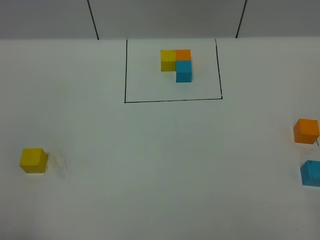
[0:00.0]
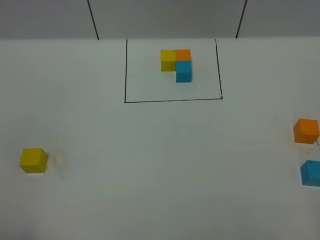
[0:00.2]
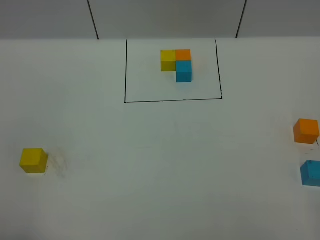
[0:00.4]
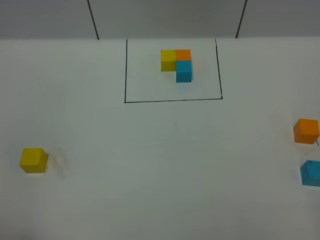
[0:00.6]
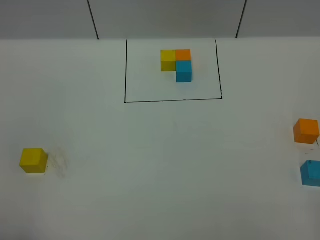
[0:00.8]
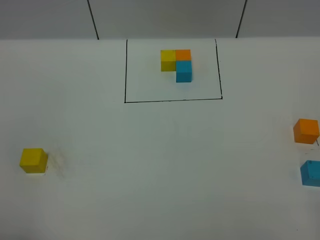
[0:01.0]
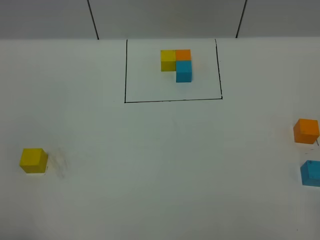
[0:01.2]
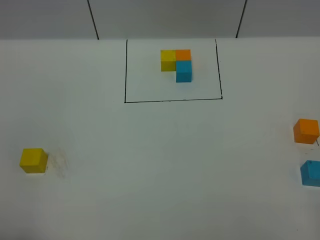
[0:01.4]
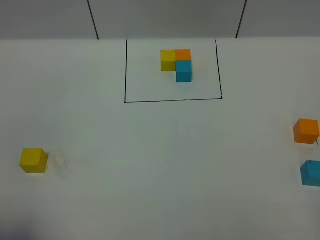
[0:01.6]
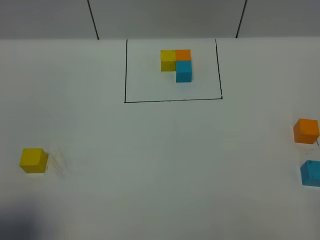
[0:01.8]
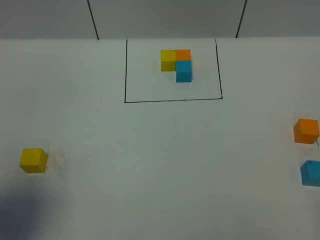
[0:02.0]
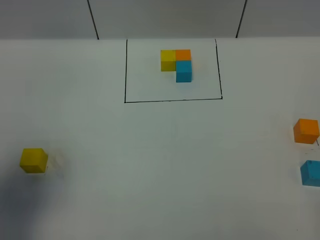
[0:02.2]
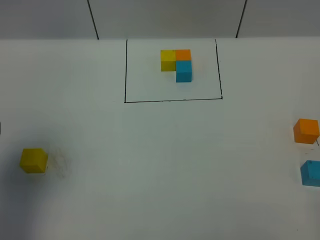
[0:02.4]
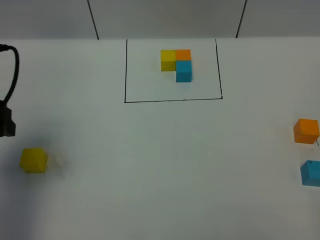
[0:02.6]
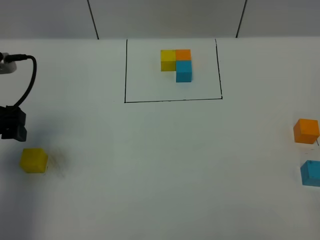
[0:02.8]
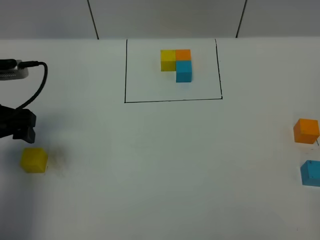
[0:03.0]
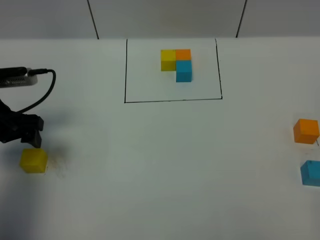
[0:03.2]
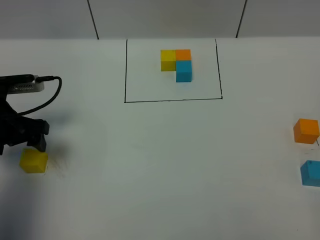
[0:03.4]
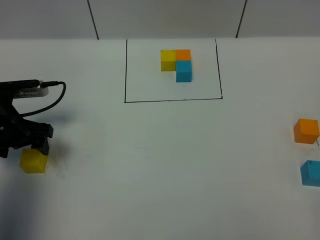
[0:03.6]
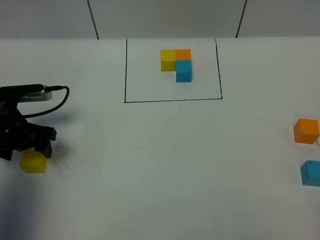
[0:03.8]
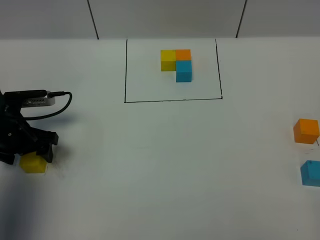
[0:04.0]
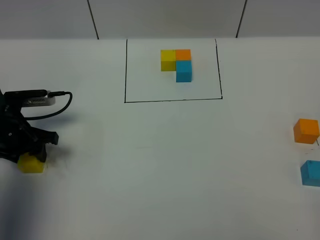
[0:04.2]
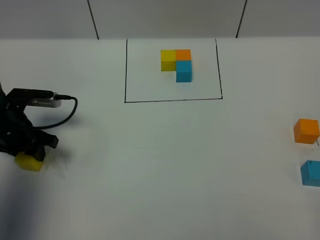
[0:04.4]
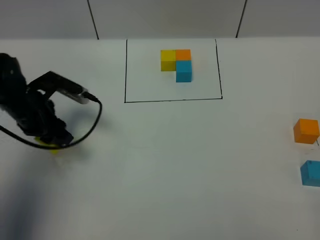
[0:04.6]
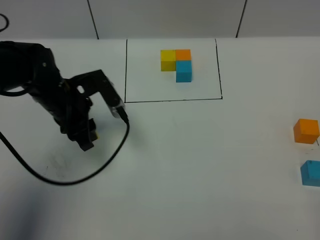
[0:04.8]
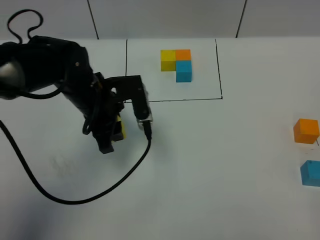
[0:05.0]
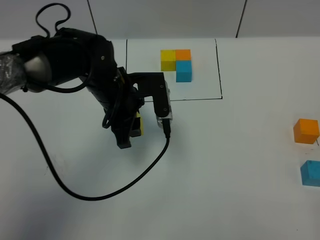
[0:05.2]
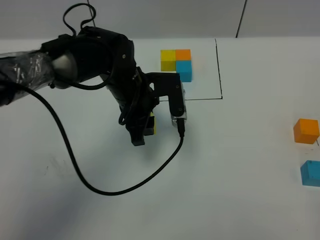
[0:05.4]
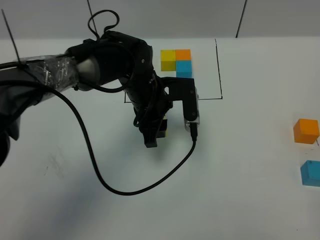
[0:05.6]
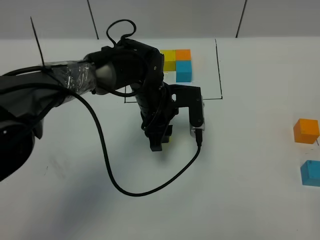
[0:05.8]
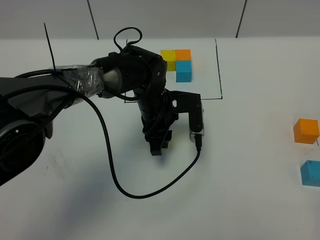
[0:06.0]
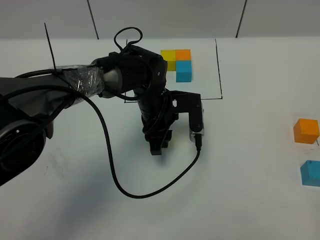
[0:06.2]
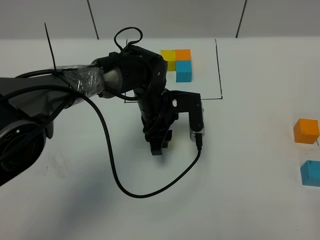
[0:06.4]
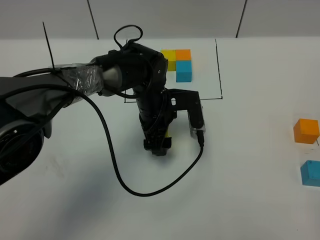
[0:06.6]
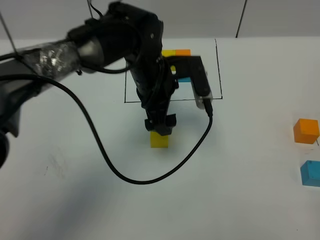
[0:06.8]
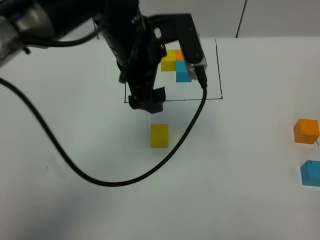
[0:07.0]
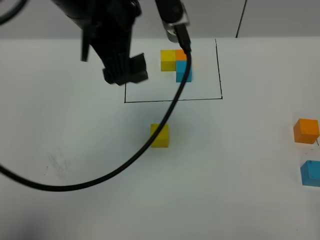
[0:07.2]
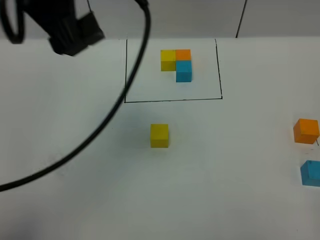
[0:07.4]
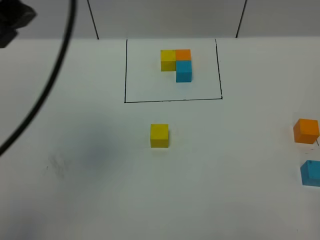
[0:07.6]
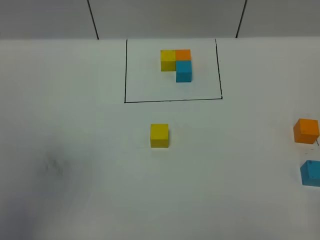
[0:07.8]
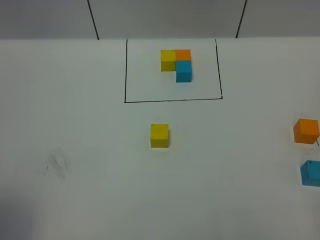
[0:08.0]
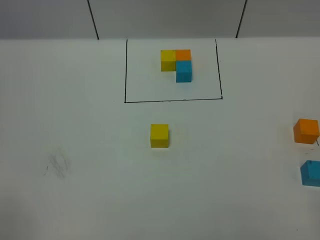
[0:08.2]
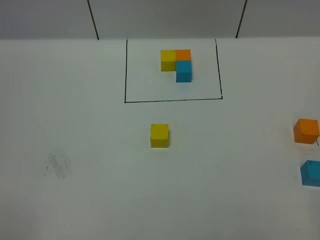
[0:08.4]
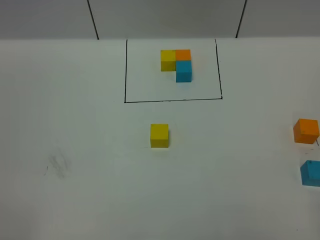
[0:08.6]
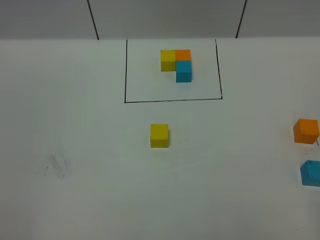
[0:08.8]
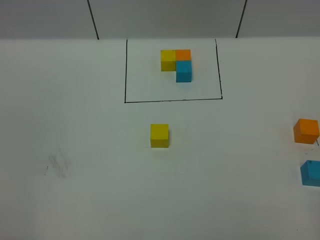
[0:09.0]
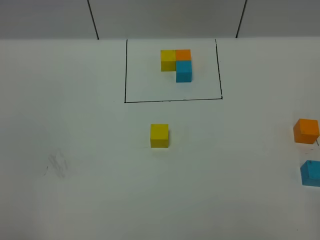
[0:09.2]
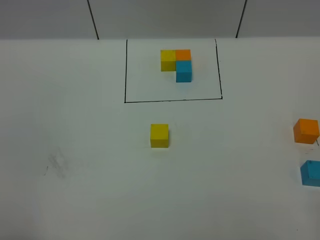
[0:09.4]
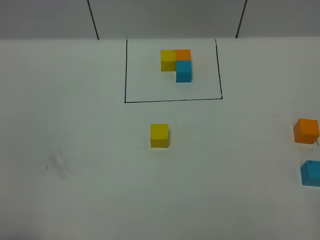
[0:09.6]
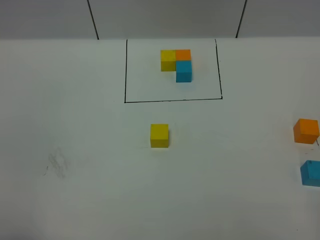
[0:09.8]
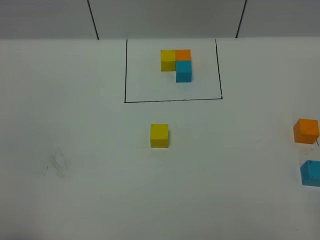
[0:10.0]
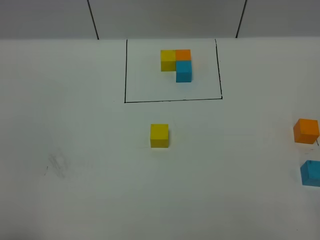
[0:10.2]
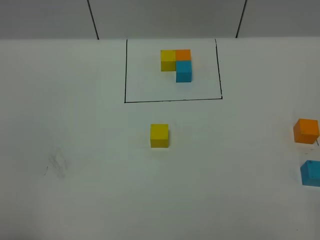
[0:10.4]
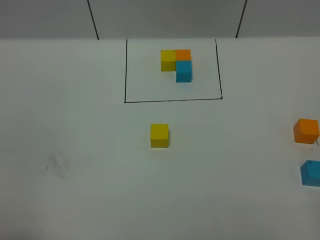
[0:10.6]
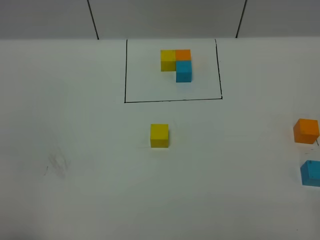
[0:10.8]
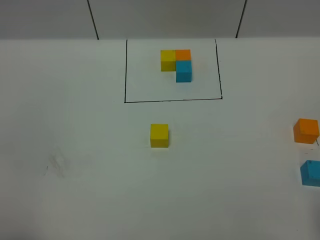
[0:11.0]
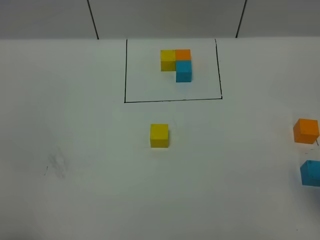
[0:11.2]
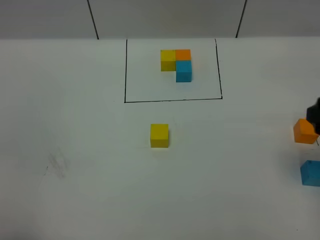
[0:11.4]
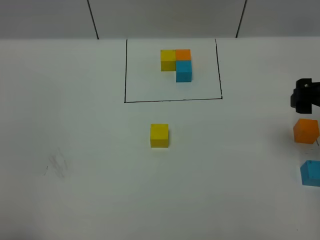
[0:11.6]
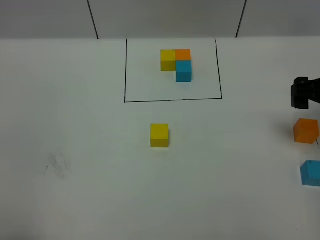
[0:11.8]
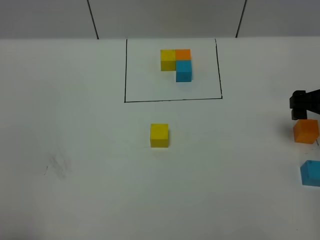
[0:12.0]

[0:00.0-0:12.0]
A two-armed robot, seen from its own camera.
Task of the whole recording: According to the building block template in front, assemble the scattered blocks together.
Step, 0:02.4 to 0:06.6: Put the yellow cube in the center of the table.
0:01.6 to 0:03.0: The left gripper travels forward by about 25 cm.
0:03.0 to 0:04.4: The left gripper heads downward, covering about 10 cm, and closes up.
0:04.4 to 0:06.0: The left gripper moves to the right, about 25 cm.
0:06.0 to 0:07.6: The left gripper heads upward, to the left and backward, covering about 40 cm, and opens up.
0:07.6 to 0:09.0: The left gripper heads backward, downward and to the left, covering some 30 cm.
0:10.4 to 0:12.0: The right gripper heads forward, covering roughly 30 cm, and opens up.

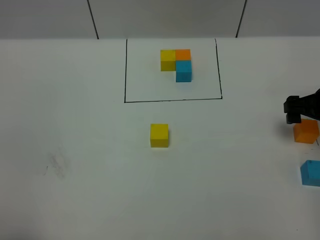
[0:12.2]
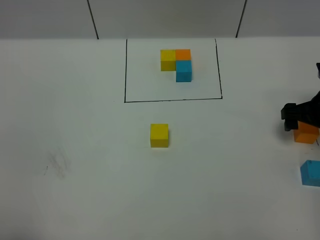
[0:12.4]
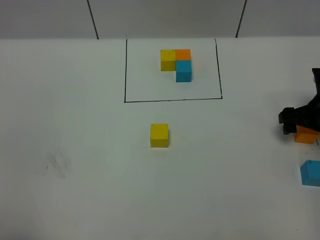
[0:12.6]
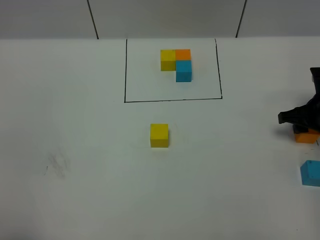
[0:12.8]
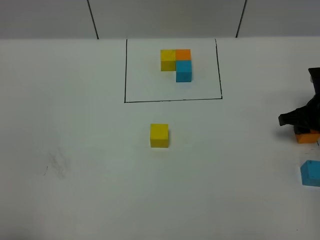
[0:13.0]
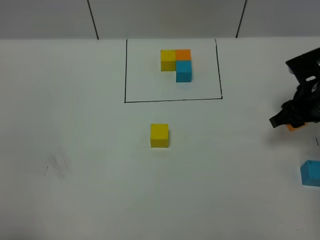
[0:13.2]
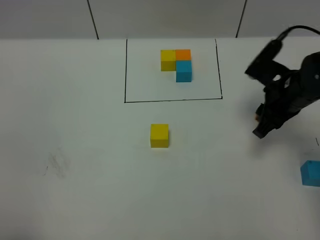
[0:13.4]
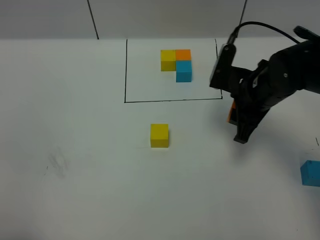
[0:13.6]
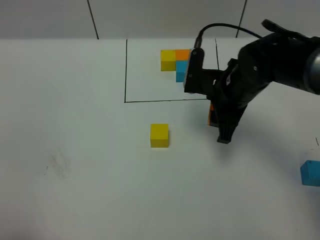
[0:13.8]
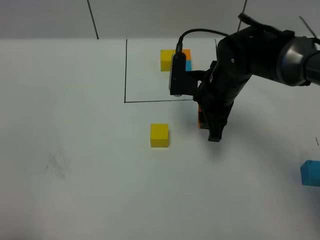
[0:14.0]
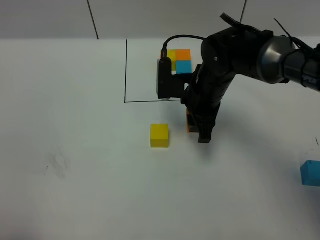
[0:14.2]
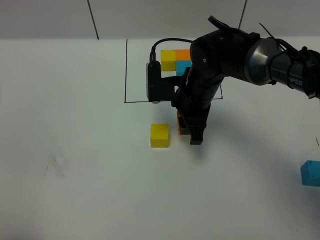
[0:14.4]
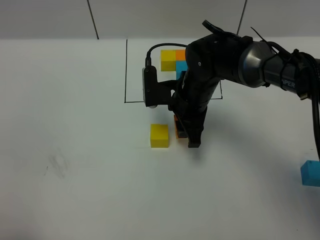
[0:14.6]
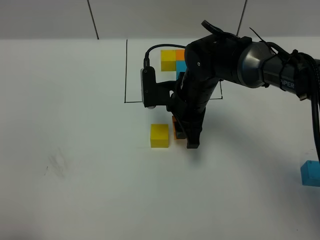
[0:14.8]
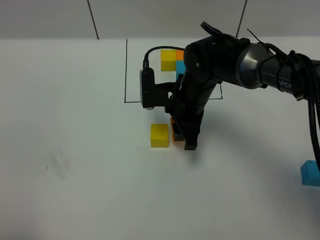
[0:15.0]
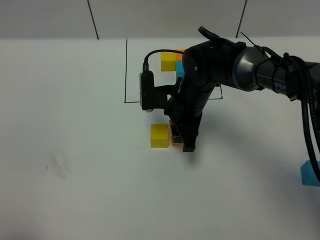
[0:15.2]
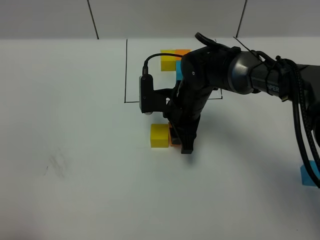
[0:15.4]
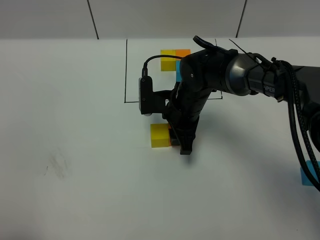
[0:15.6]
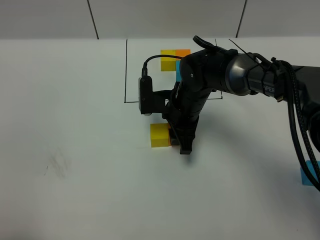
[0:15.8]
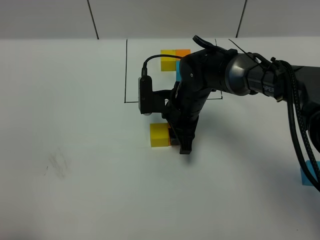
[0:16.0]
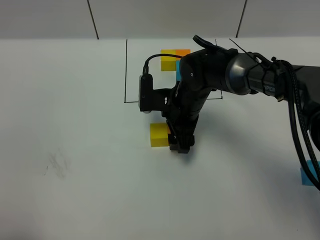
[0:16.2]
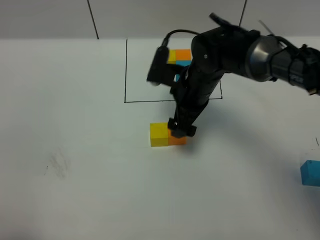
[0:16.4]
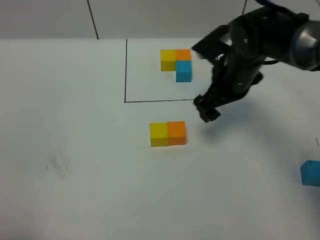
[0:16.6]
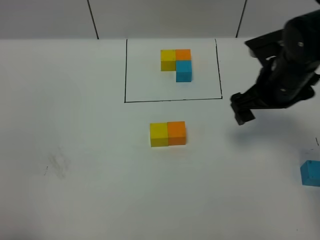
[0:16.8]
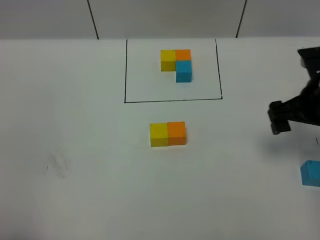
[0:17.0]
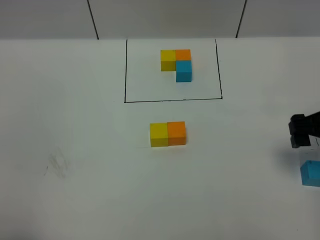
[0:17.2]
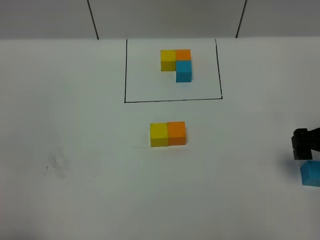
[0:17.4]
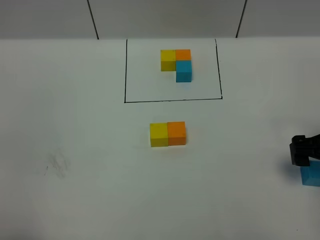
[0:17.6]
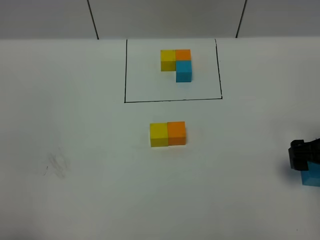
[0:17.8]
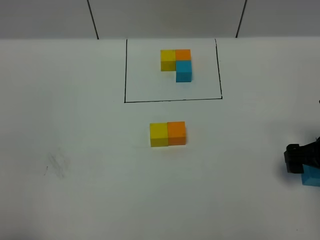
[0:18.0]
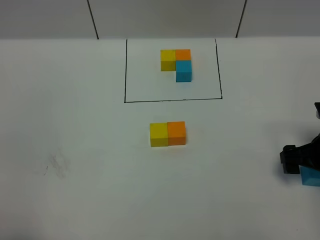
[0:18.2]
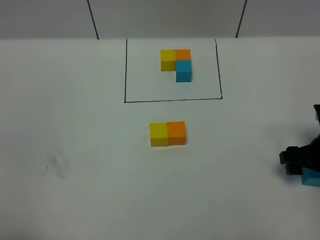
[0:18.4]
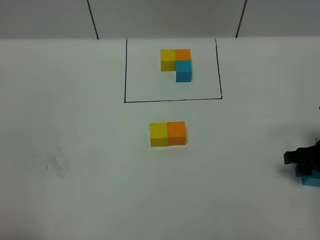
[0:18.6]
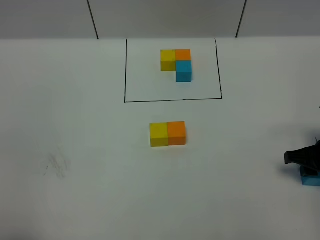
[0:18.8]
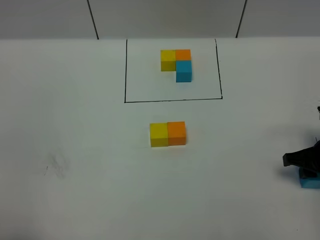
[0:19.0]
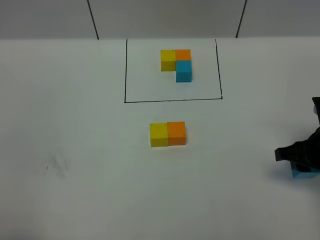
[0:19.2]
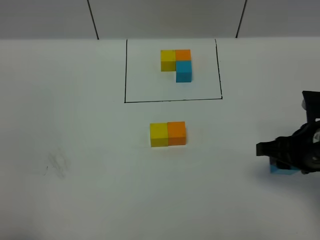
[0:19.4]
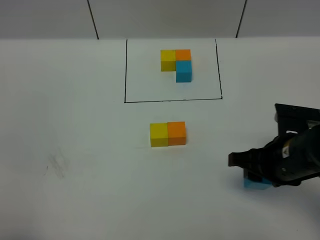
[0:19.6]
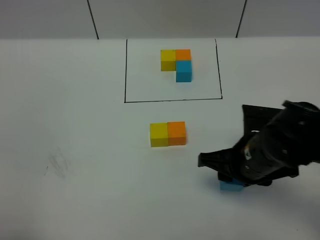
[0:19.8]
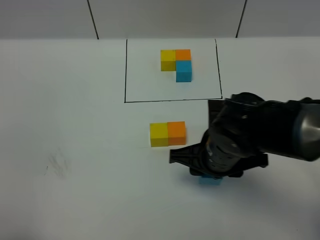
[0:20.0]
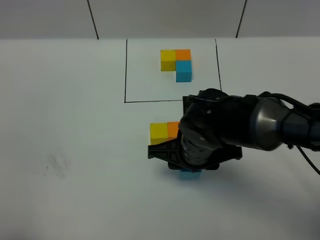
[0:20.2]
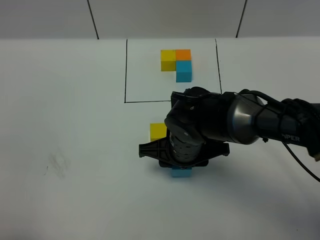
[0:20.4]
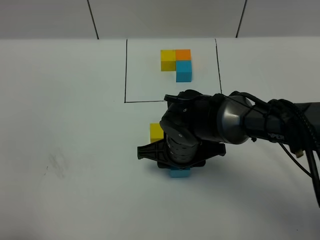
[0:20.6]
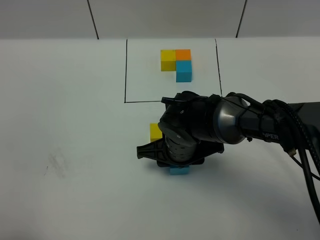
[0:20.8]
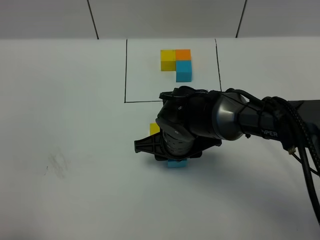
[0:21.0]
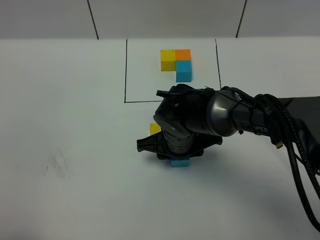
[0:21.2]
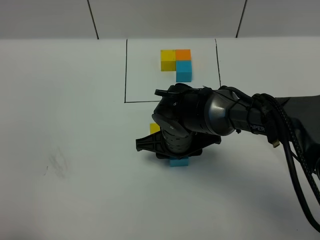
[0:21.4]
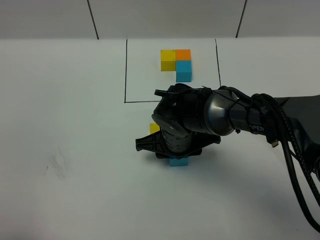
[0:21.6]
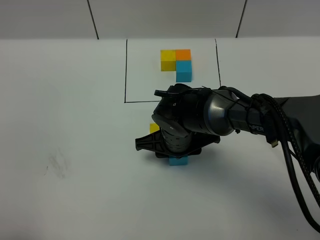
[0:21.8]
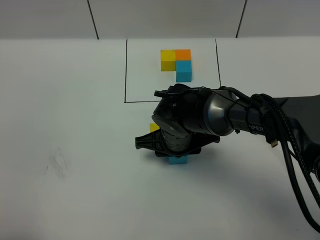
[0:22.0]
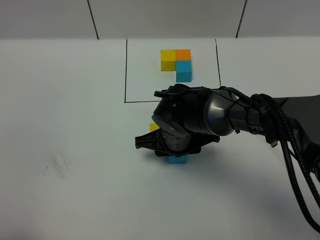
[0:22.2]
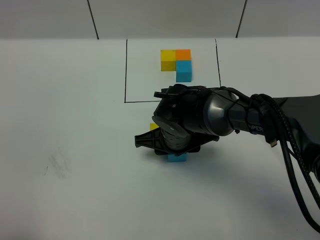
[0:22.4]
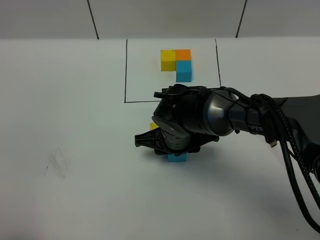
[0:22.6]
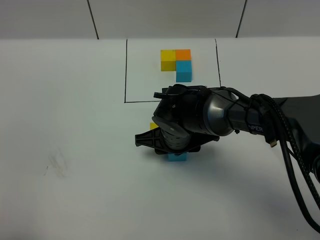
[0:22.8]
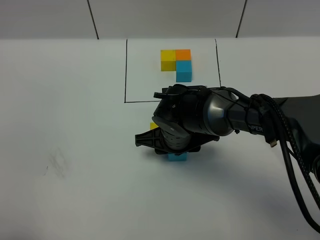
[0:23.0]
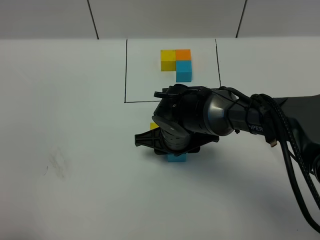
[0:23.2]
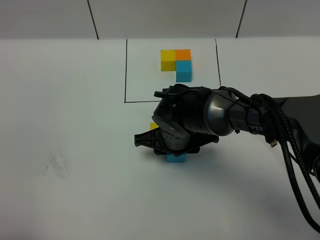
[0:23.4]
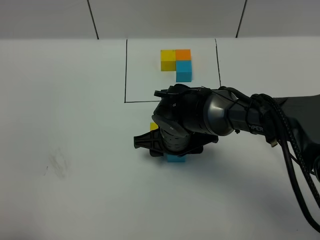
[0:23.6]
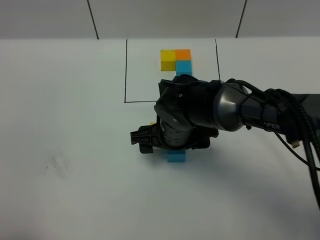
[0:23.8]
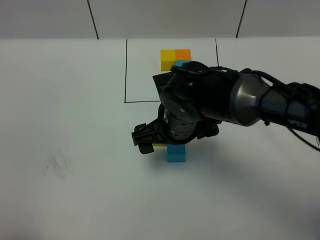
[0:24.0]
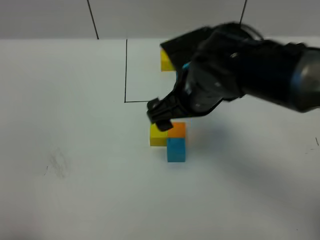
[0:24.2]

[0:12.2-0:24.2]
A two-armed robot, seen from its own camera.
Task of the whole recording: According to the building block template in front, assemble the scattered blocks together.
Step, 0:12.2 to 0:16.2: Put the orange cube on the right of the yellow cube.
Step, 0:16.4 to 0:23.6: Put the blue cube in the front of the orange cube.
0:12.2 to 0:13.8: The right gripper is displaced to the left by some 20 cm, and closes.
0:13.8 to 0:15.2: The right gripper shifts approximately 5 cm to the left.
0:15.2 to 0:16.6: The right gripper travels to the right and upward by about 10 cm, and opens its fingers.
0:16.6 to 0:18.2: The right gripper is displaced to the right, backward and downward by approximately 20 cm.
0:18.2 to 0:19.8: The right gripper is displaced to the left by about 15 cm, and closes up.
0:19.8 to 0:21.2: The right gripper travels to the left and forward by about 15 cm.
0:21.2 to 0:22.6: Both grippers stay put.
0:22.6 to 0:24.2: The right gripper is displaced upward by roughly 15 cm, and opens up.
